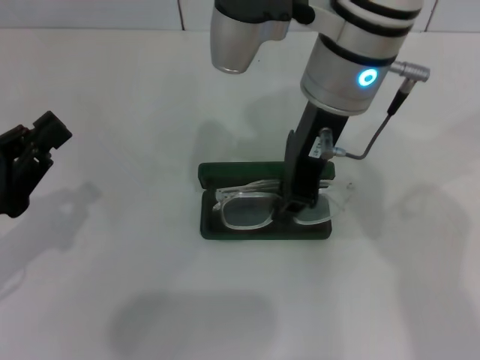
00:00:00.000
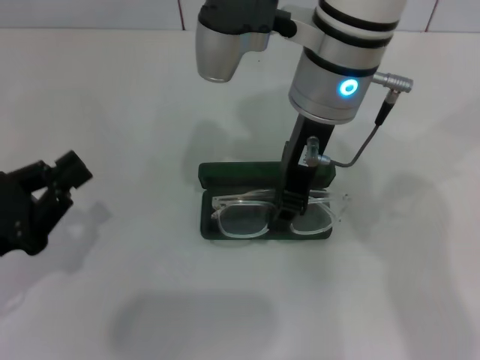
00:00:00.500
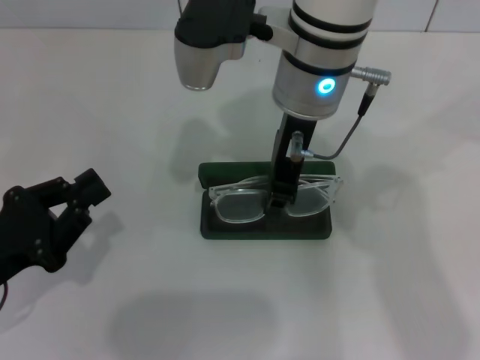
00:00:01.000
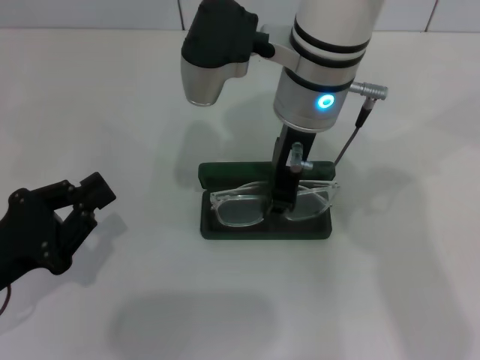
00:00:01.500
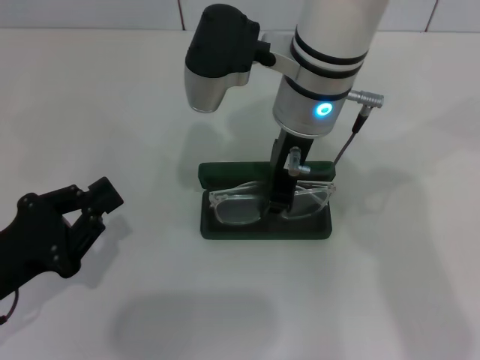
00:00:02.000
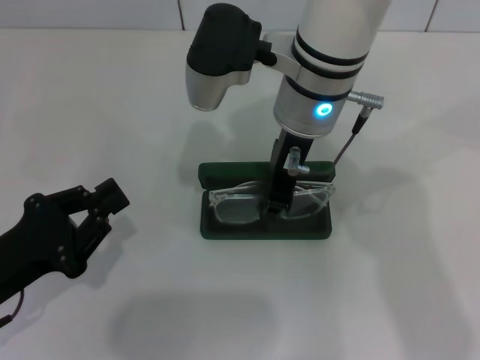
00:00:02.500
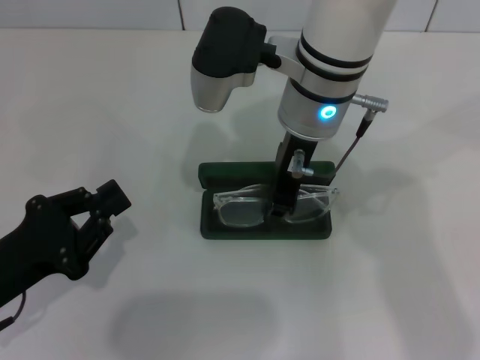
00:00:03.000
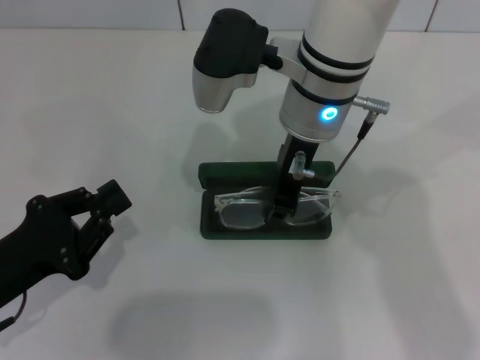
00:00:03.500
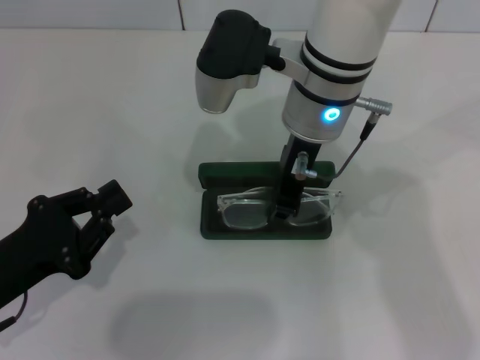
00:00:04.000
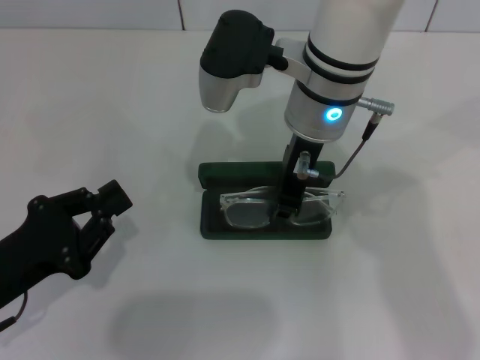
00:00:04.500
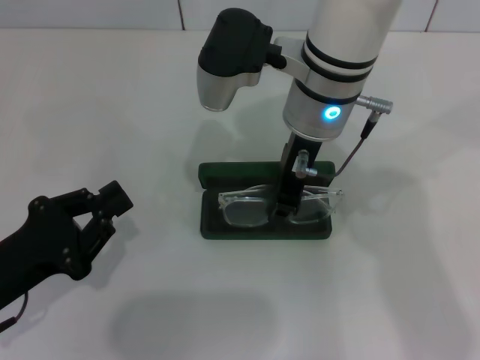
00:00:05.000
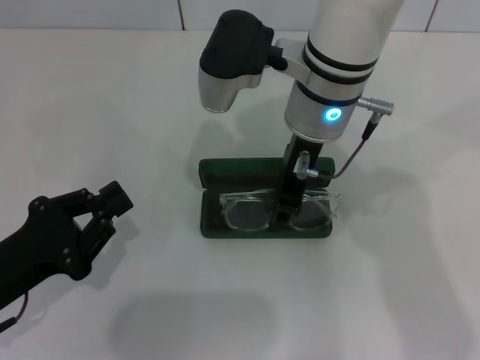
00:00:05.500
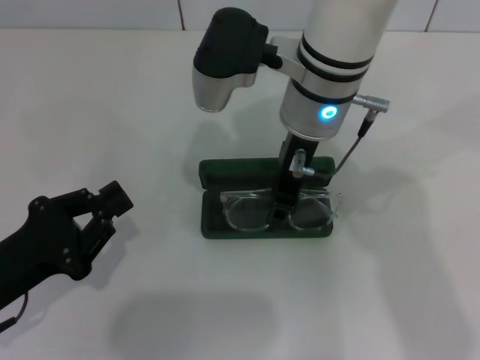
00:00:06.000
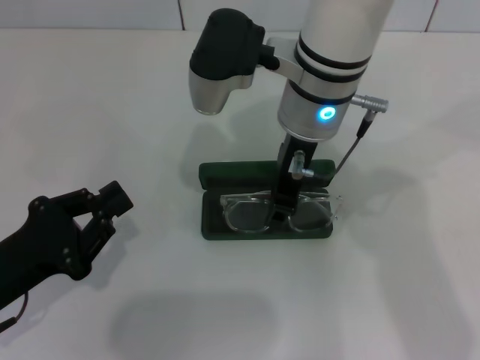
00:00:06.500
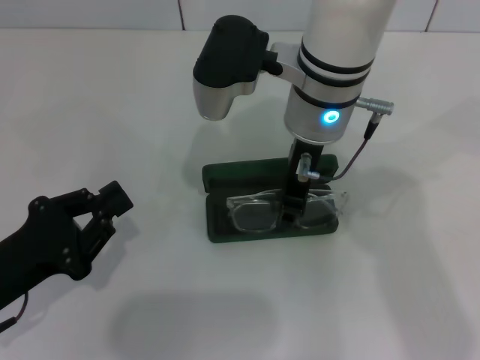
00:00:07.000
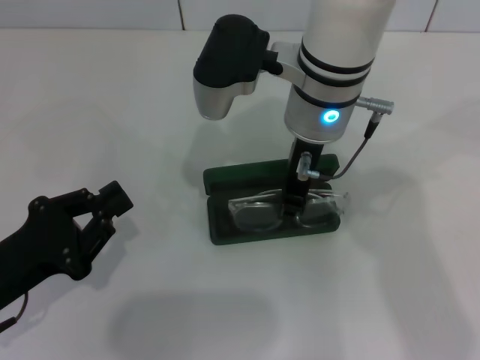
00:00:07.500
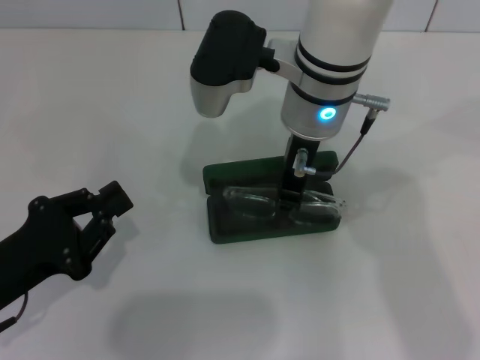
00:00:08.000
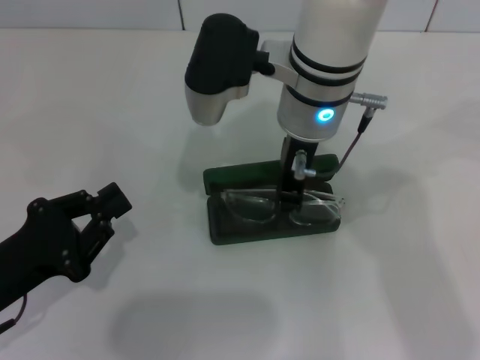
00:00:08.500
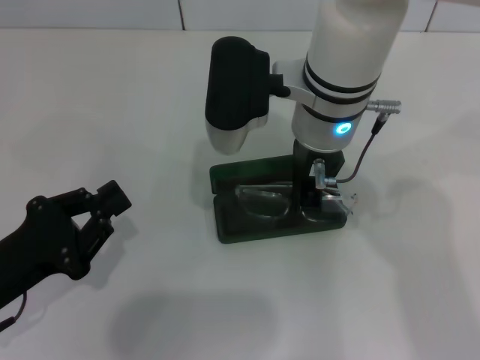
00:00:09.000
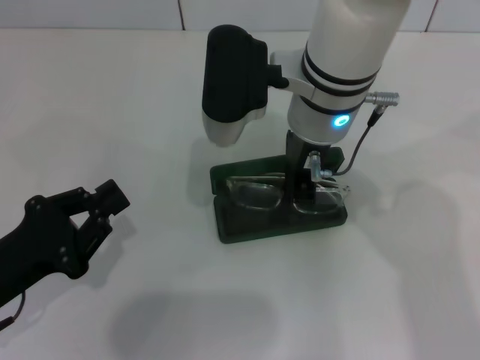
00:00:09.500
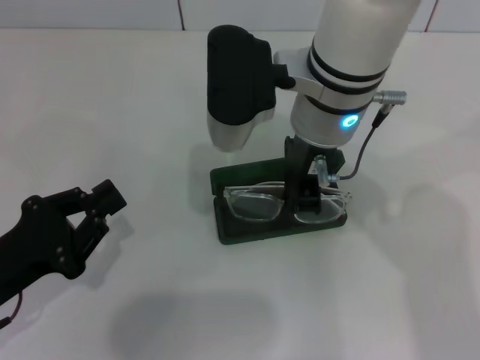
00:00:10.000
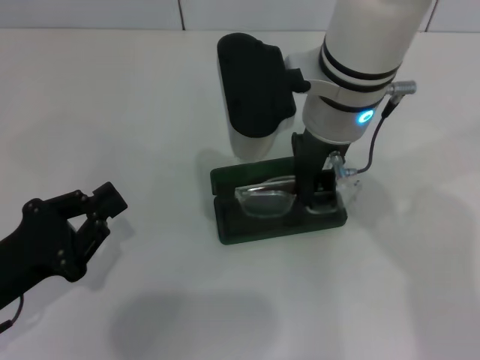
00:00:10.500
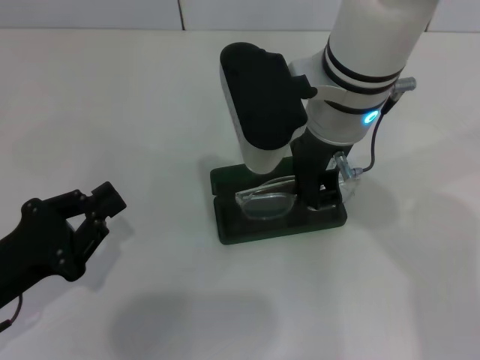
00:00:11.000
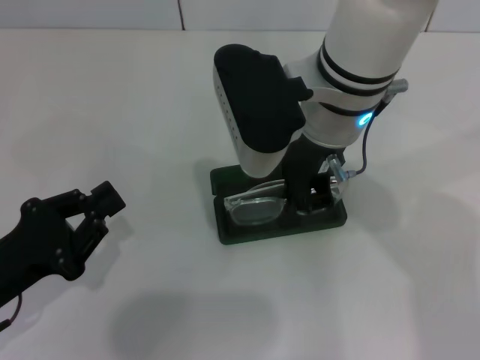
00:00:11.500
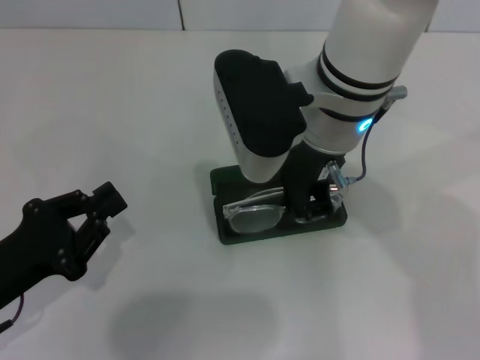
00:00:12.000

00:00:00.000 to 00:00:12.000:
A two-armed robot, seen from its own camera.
00:00:00.000 to 00:00:02.000: The right gripper ends up roughly 5 cm from where it was.
00:00:02.000 to 00:00:04.000: Both grippers stay about where they are.
00:00:04.000 to 00:00:06.000: Both grippers stay about where they are.
00:00:06.000 to 00:00:08.000: Both grippers stay about where they are.
00:00:08.000 to 00:00:10.000: There are only small adjustments of the grippers.
00:00:10.000 to 00:00:12.000: There are only small adjustments of the grippers.

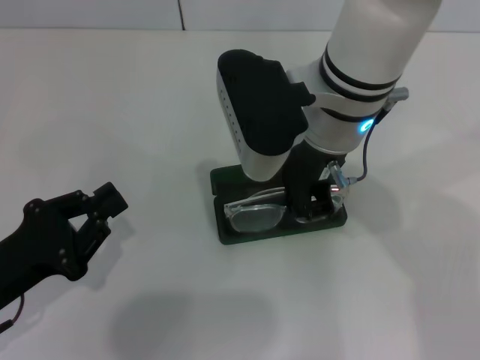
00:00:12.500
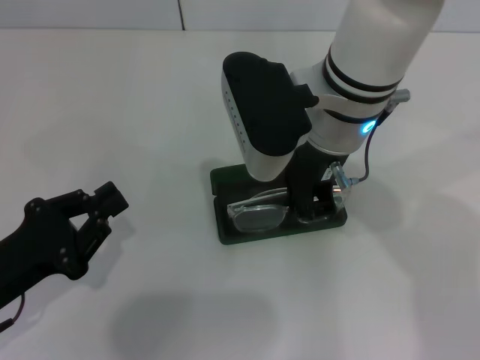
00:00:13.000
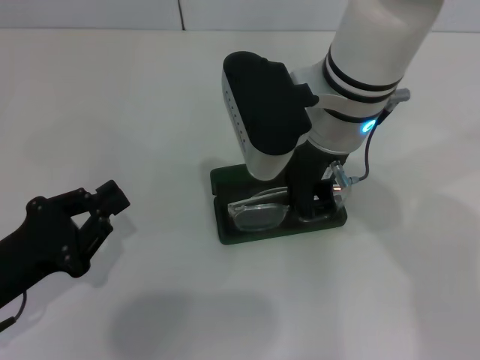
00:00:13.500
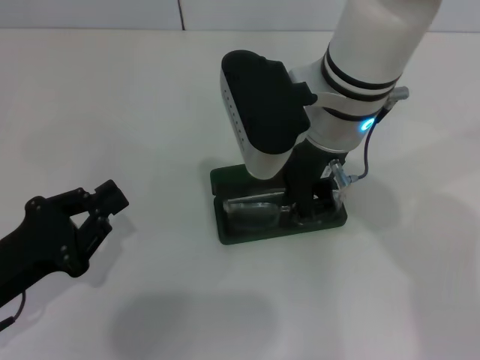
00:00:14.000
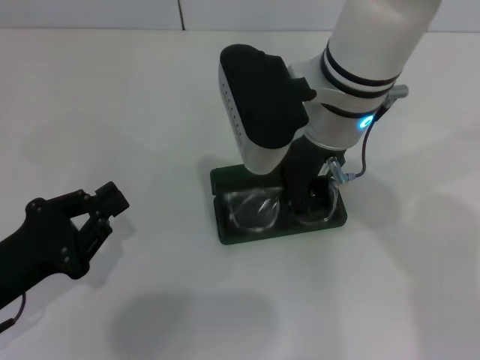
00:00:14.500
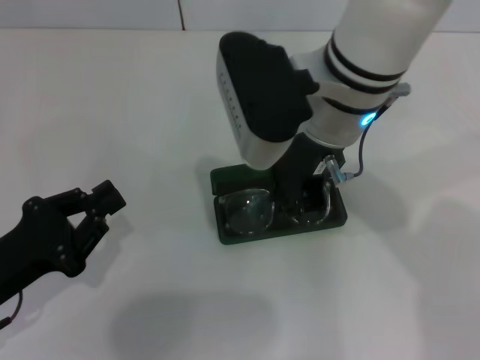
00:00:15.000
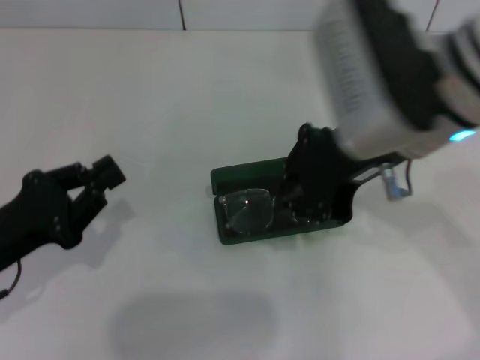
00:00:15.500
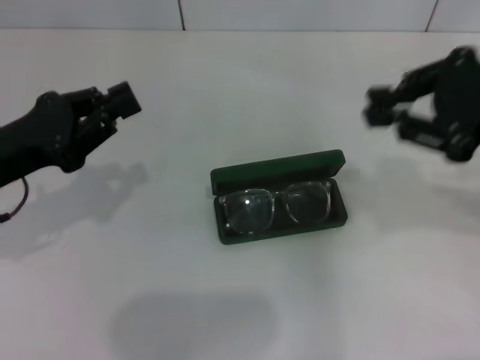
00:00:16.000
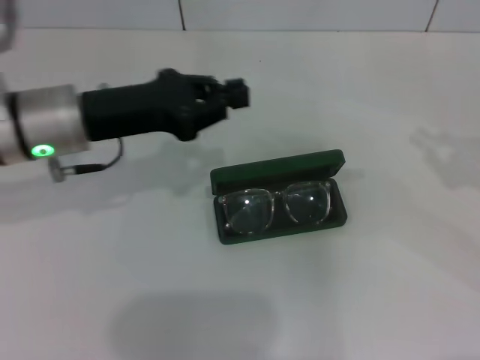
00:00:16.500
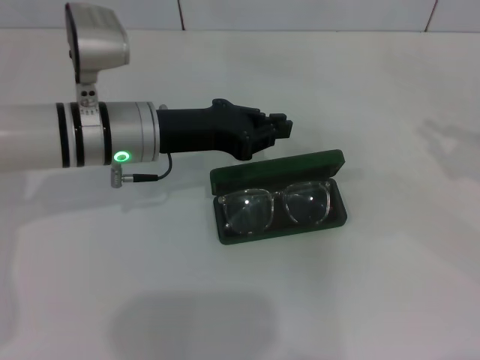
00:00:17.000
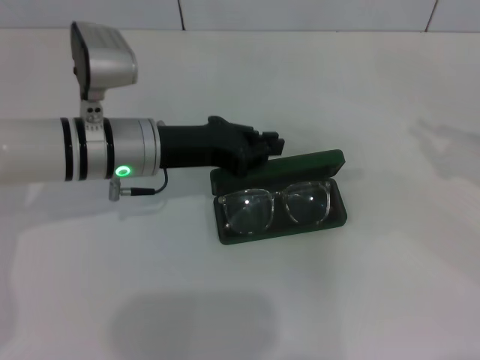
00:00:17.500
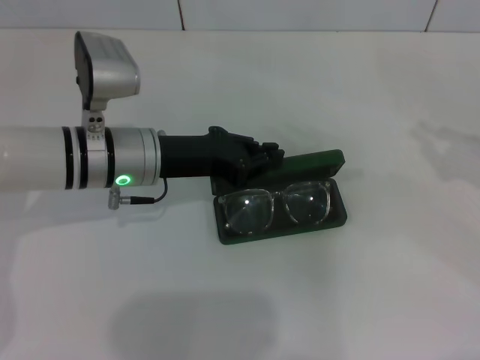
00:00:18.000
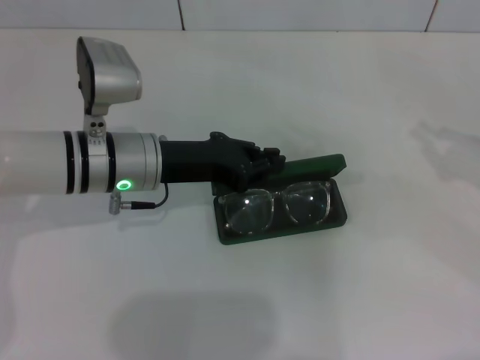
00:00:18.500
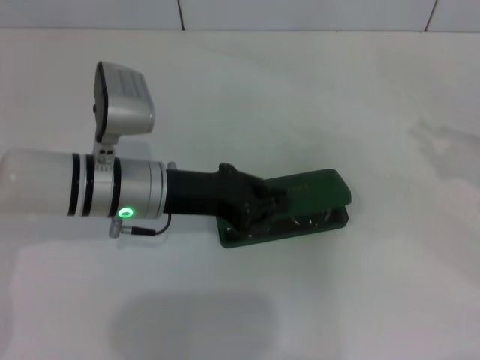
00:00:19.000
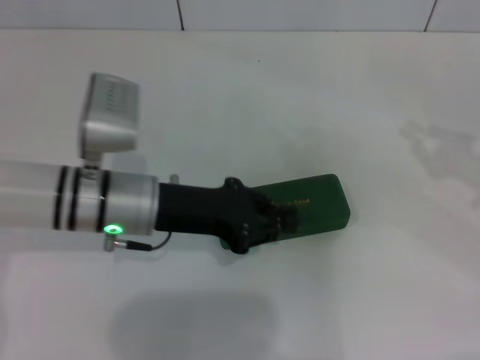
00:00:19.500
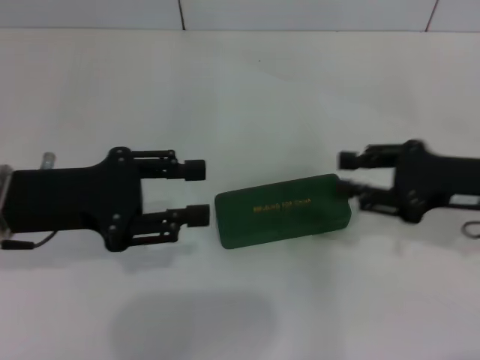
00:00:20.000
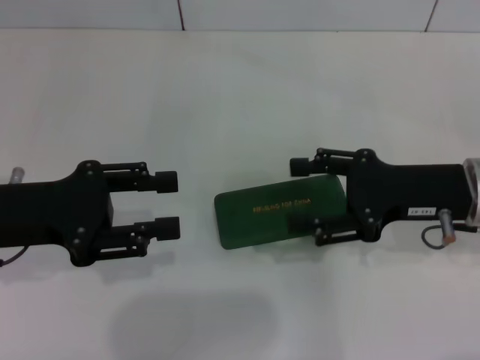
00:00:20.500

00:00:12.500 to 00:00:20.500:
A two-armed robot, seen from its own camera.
Step, 00:00:12.500 to 00:00:14.500: Put the glasses into the case with your right hand.
Step, 00:00:15.000 to 00:00:19.000: Close the glasses case with your left hand.
00:00:12.500 to 00:00:14.500: Neither gripper changes place.
00:00:14.500 to 00:00:16.500: The right gripper goes approximately 35 cm to the right. Meanwhile the left gripper is displaced forward, to the right and upward by approximately 20 cm.
00:00:16.500 to 00:00:18.500: The left gripper moves downward and to the right, roughly 5 cm.
00:00:18.500 to 00:00:20.500: The right gripper goes approximately 15 cm to the left, and opens up. The left gripper is displaced to the left and backward by some 15 cm, and opens up.

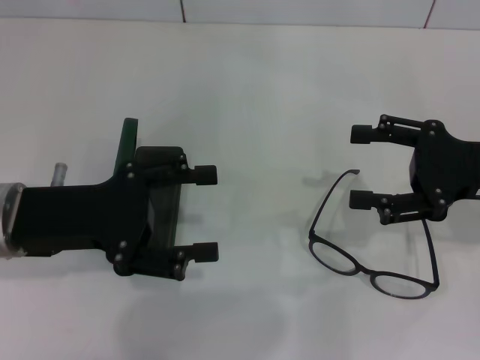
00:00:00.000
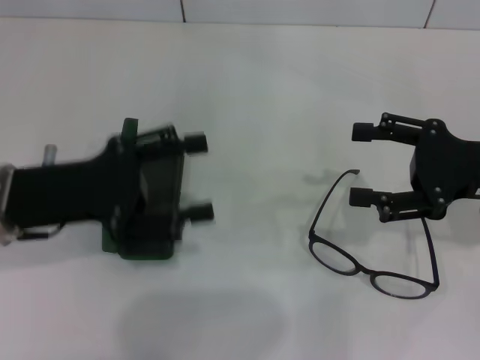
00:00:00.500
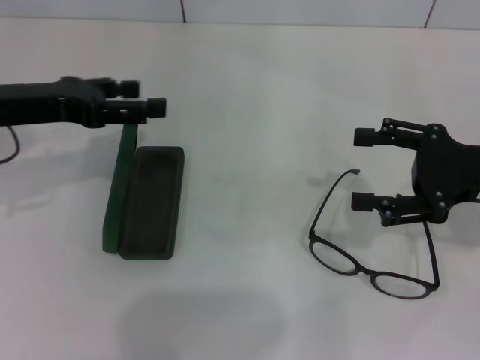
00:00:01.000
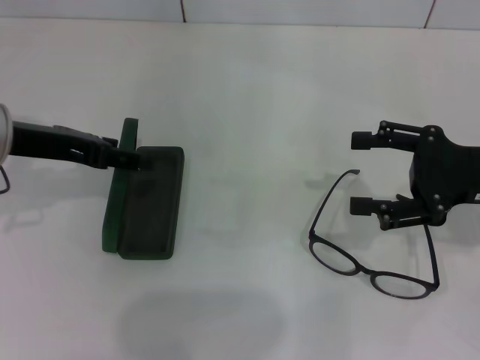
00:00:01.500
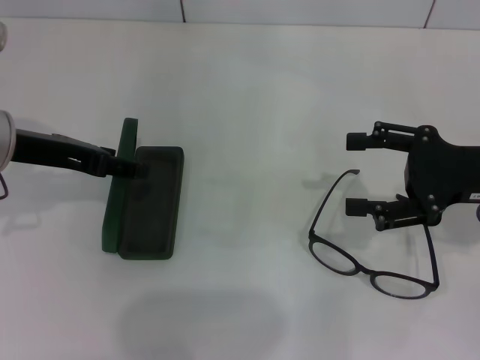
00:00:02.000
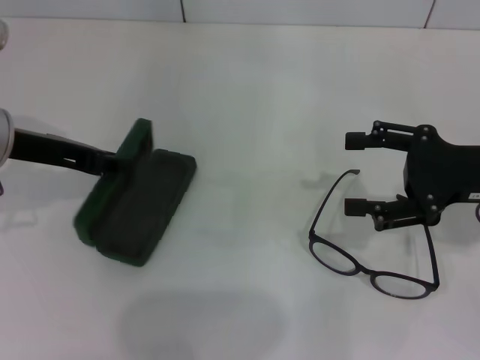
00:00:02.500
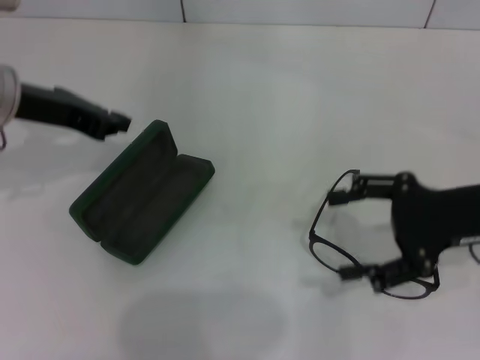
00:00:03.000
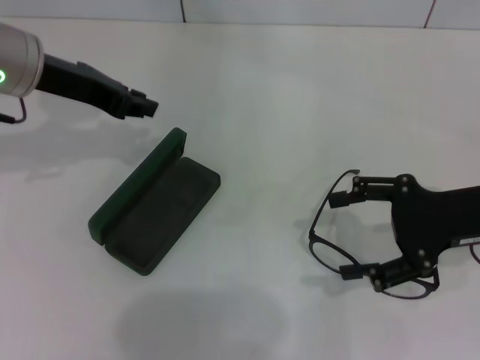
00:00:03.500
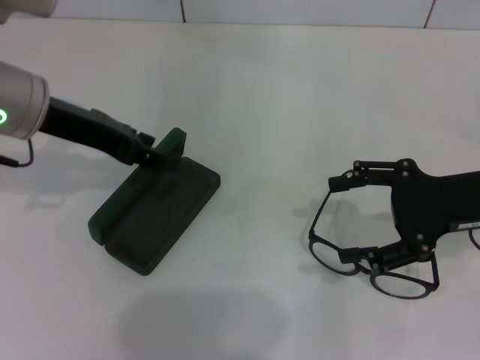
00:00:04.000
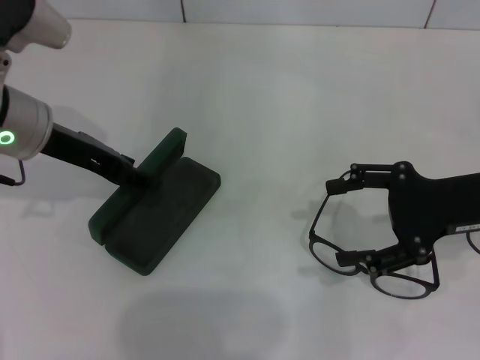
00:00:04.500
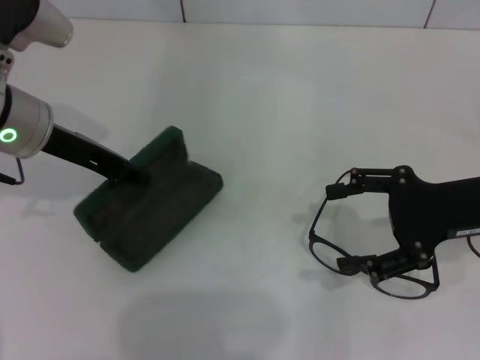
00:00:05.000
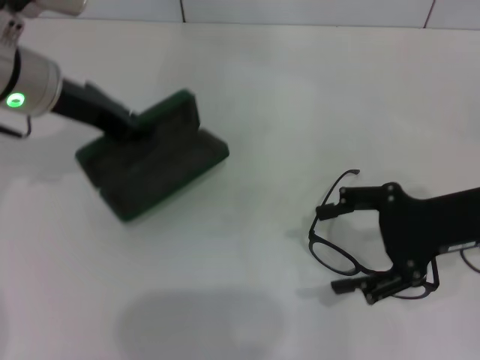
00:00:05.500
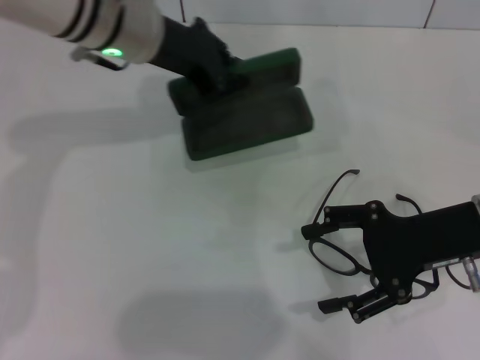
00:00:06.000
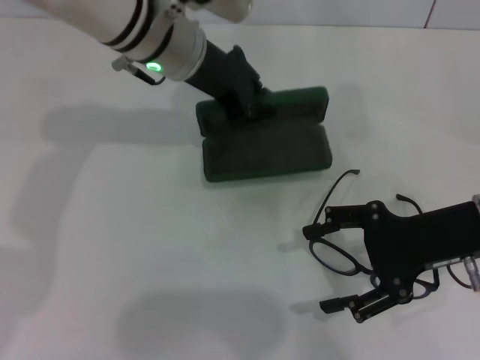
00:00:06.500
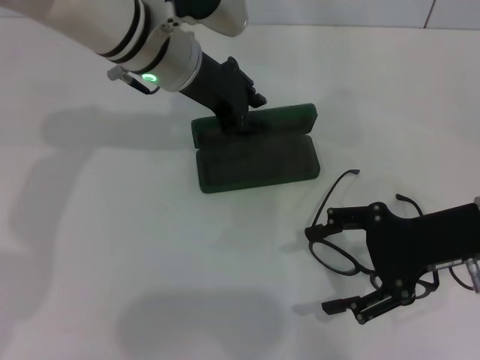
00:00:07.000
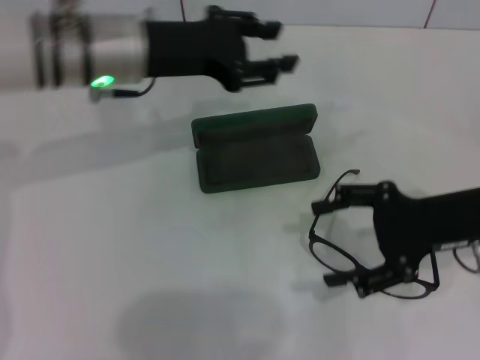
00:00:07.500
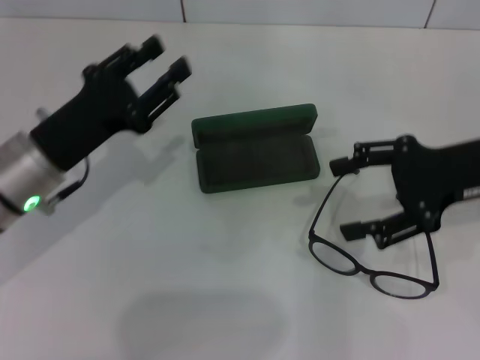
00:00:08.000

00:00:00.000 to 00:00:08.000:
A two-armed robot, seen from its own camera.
Step, 00:00:00.000 to 00:00:04.500: Grab the glasses case with your left hand.
Step, 00:00:05.000 to 00:00:06.500: Place the glasses case in the center of the table with your left hand.
00:00:00.000 to 00:00:02.000: The left gripper shifts about 5 cm forward.
00:00:02.000 to 00:00:04.000: The left gripper closes up.
00:00:04.000 to 00:00:06.000: The left gripper travels to the right and forward by some 10 cm.
00:00:06.000 to 00:00:08.000: The left gripper travels backward, downward and to the left by approximately 20 cm, and opens its fingers. The right gripper shifts roughly 5 cm upward.
